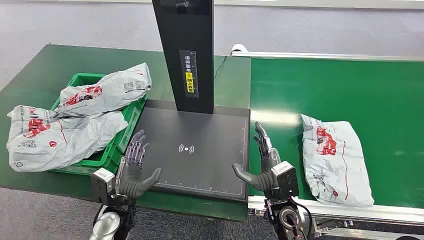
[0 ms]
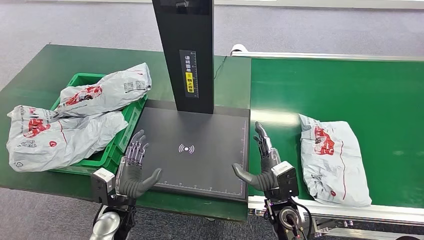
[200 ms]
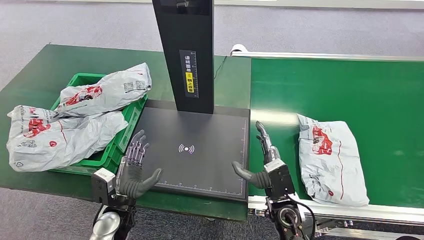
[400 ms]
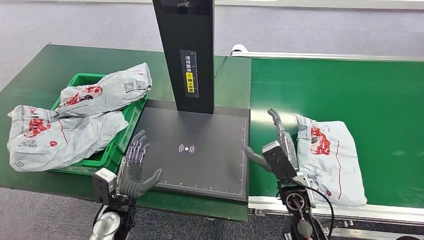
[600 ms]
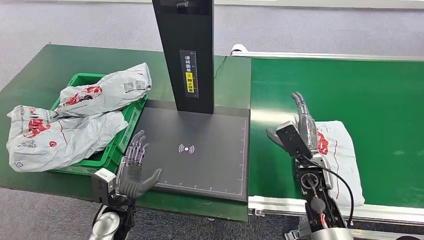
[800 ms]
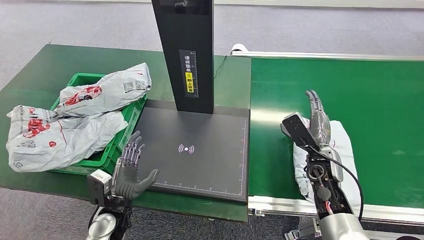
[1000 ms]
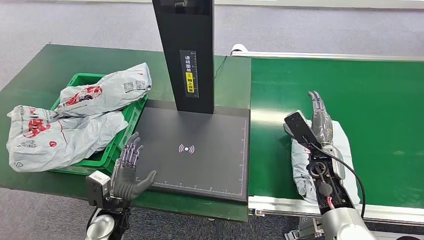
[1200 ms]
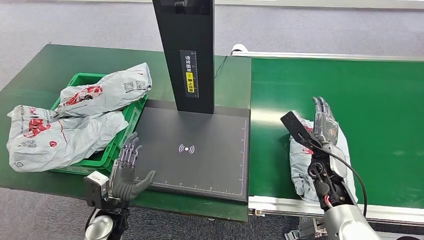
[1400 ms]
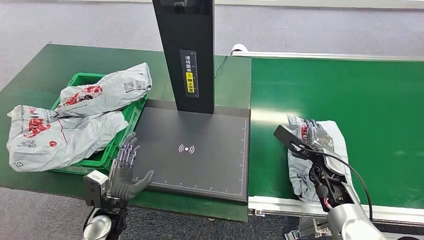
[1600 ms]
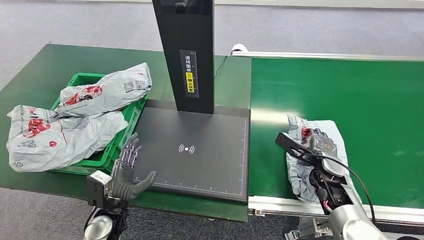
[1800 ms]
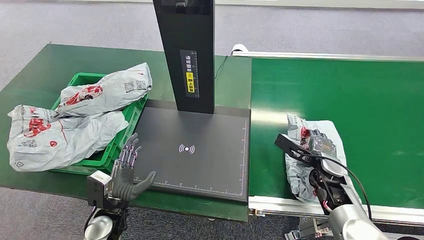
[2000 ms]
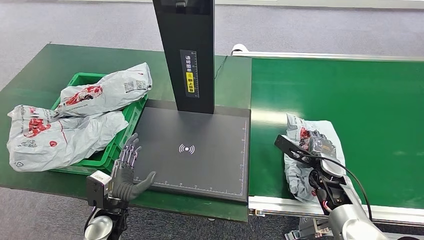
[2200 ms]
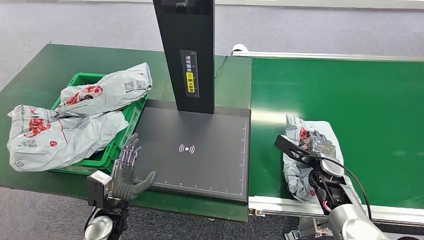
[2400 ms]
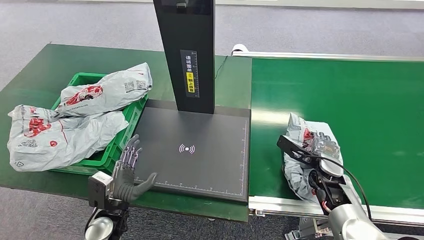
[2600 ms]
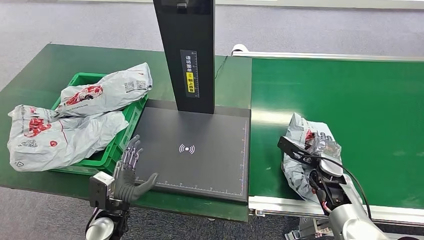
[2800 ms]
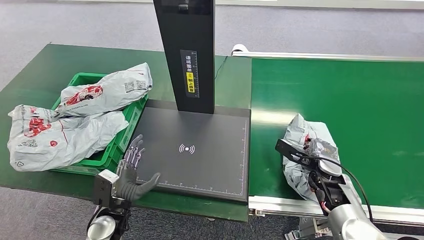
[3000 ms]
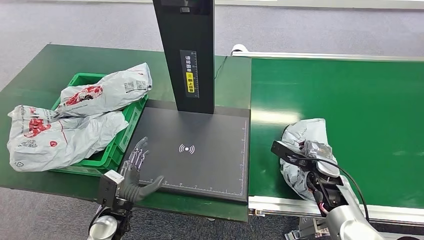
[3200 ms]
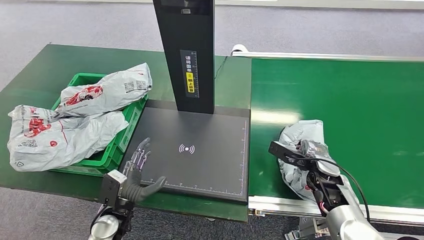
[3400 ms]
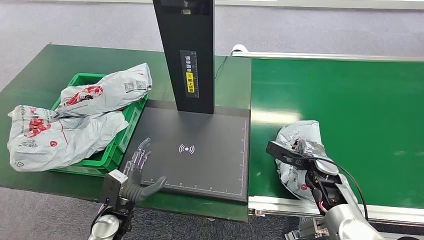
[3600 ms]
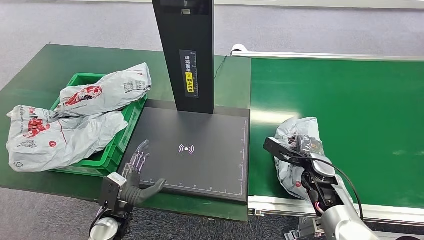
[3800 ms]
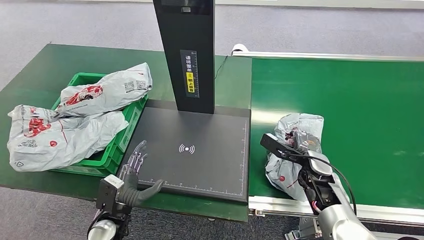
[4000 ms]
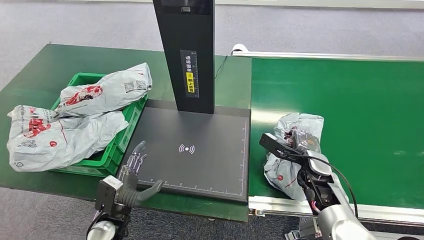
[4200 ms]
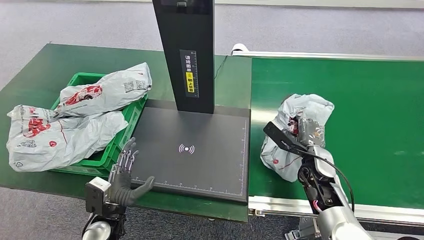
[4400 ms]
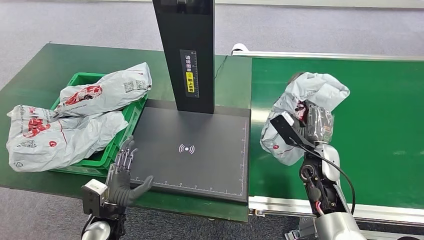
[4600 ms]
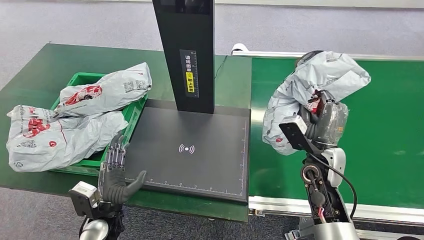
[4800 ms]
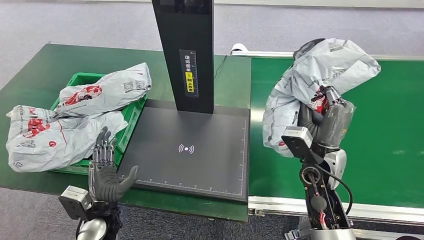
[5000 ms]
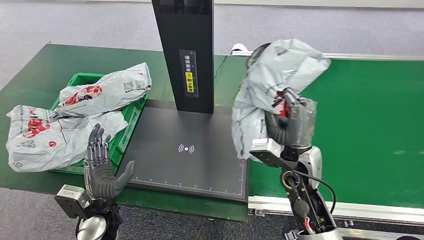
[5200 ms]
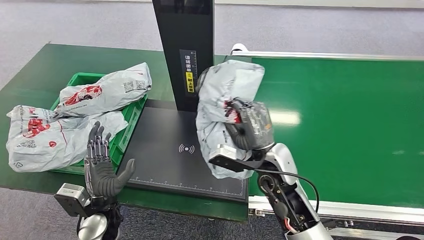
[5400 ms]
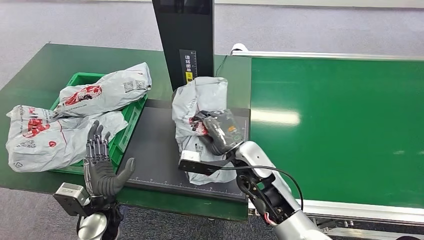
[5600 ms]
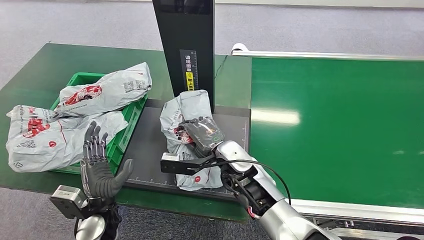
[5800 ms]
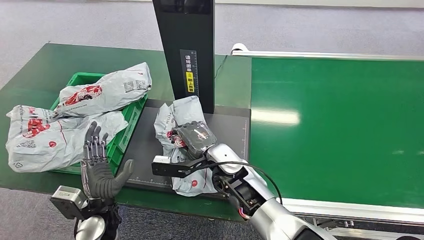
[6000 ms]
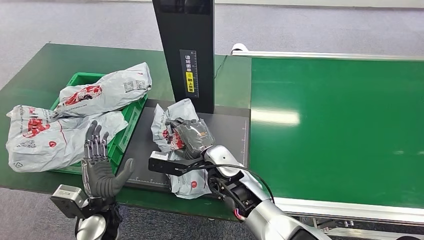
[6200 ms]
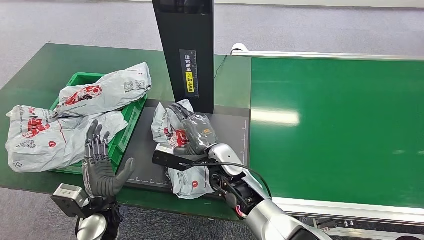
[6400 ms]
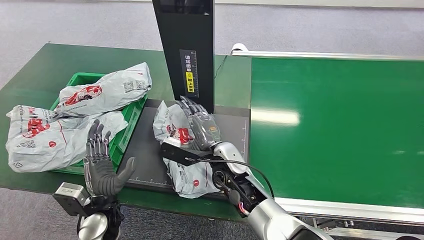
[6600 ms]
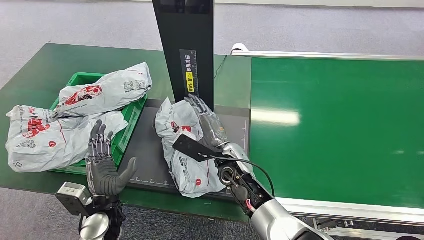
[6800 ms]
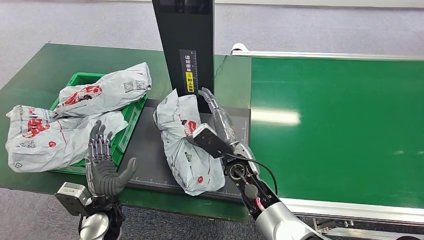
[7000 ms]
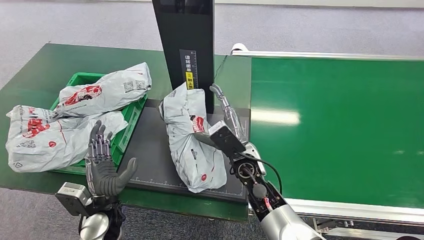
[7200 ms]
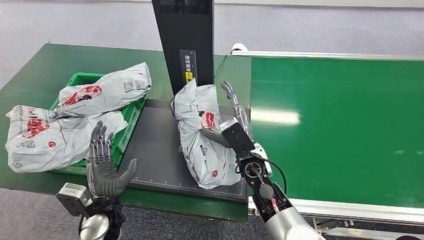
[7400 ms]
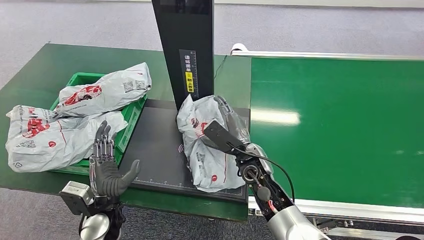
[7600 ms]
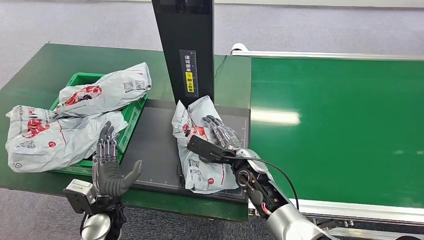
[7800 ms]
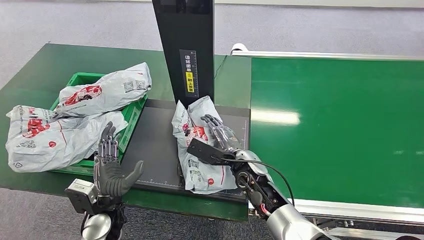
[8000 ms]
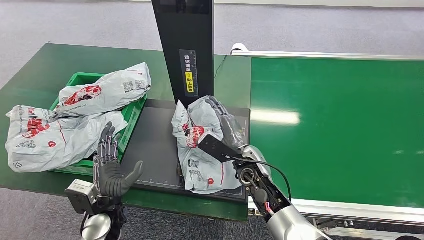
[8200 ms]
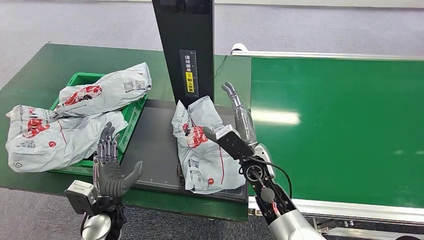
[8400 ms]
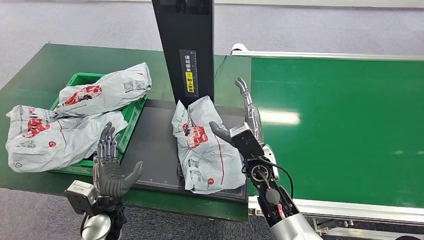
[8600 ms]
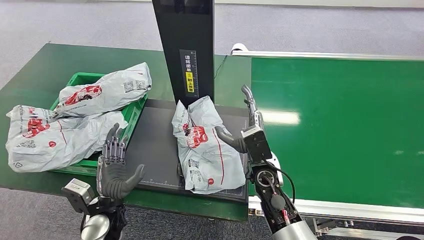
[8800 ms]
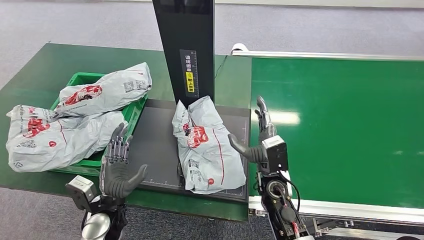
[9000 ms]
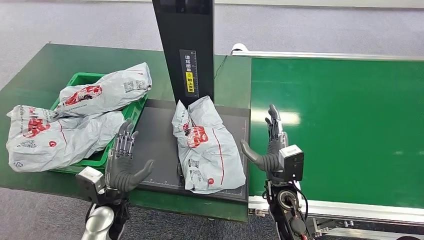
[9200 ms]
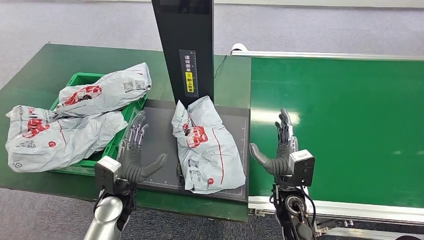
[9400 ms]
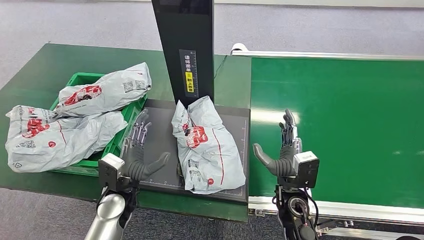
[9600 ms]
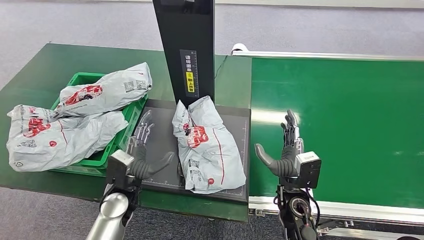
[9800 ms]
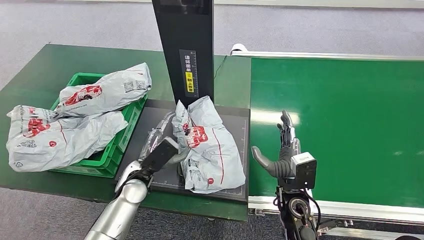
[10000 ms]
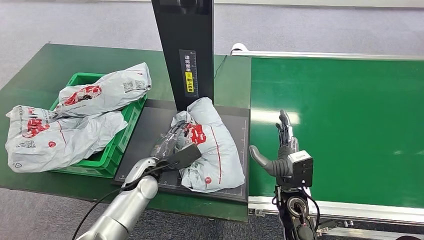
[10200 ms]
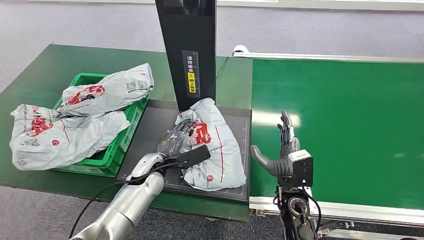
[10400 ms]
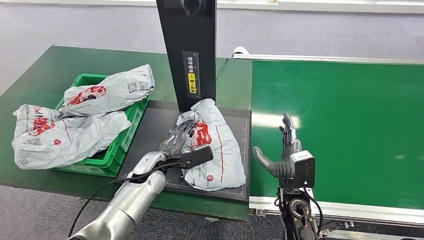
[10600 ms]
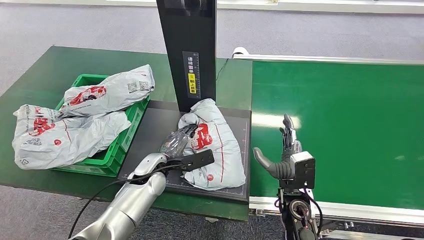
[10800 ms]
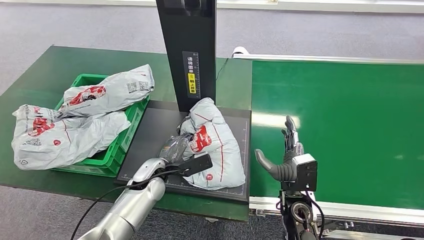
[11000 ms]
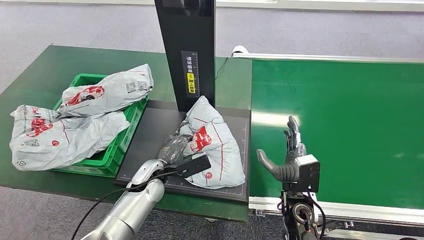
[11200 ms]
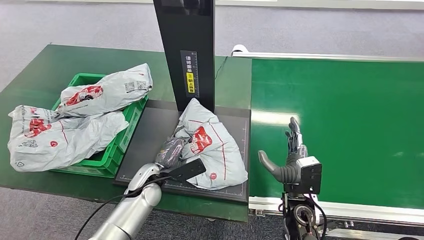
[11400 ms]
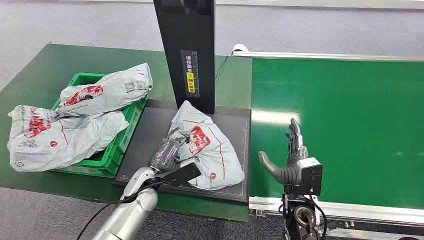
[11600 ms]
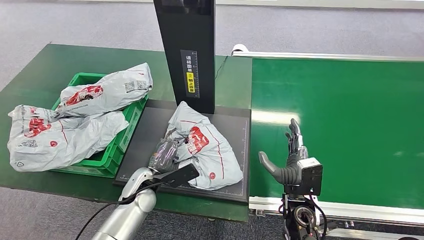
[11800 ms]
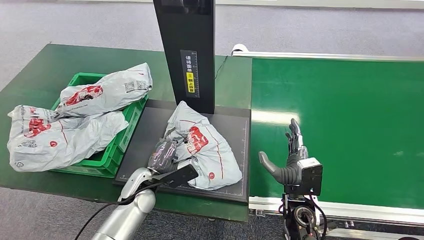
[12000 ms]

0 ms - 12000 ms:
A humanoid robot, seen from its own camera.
Step, 0 ms - 4600 ms: Pick up the package from the conveyor belt.
Step, 4800 ms - 9000 ms: Place the package onto the inbound machine.
6000 ms - 7600 ms: The right hand heads to the right, covering some 5 cm.
7600 ms - 9000 ms: The right hand ends up some 5 cm from where it was.

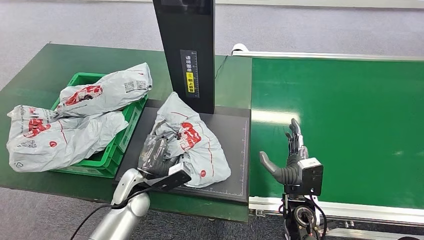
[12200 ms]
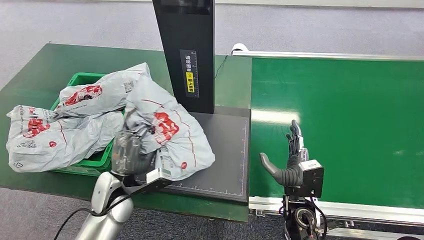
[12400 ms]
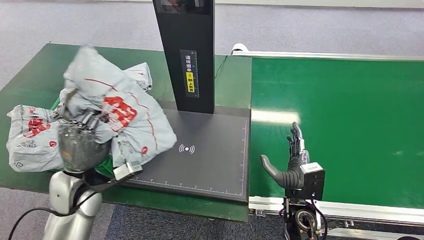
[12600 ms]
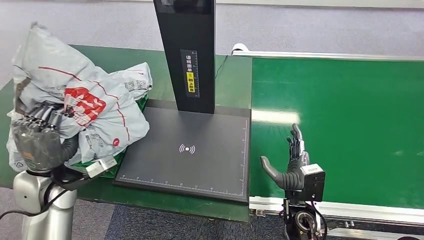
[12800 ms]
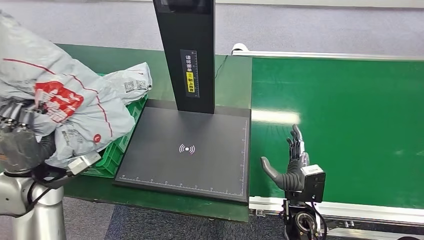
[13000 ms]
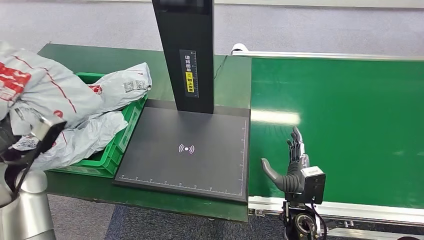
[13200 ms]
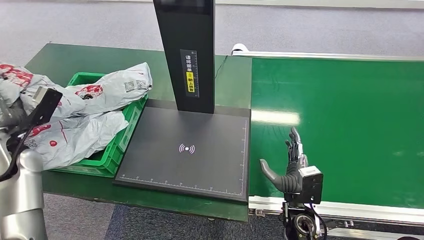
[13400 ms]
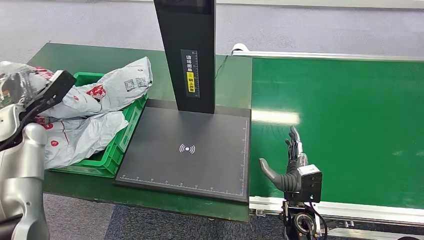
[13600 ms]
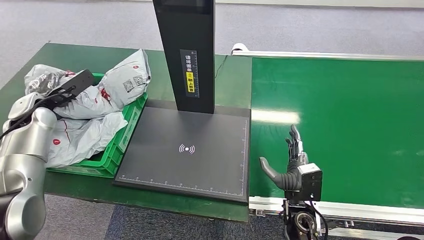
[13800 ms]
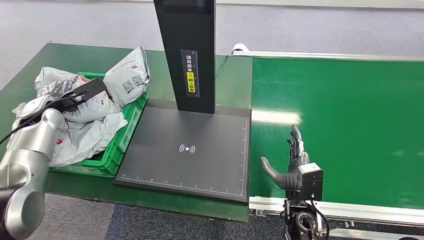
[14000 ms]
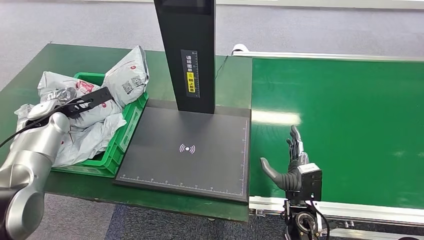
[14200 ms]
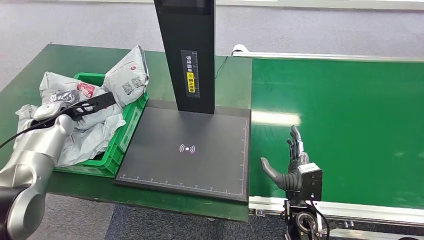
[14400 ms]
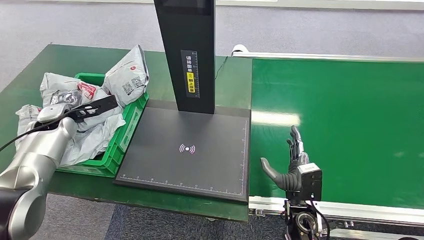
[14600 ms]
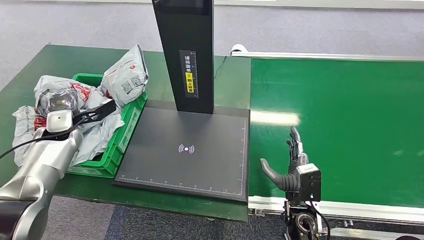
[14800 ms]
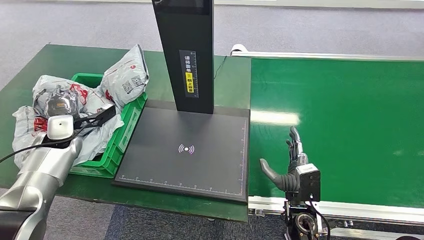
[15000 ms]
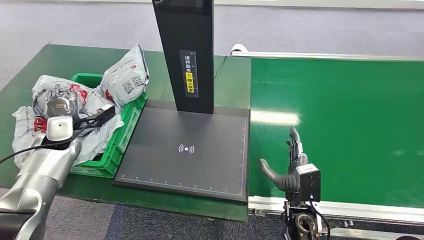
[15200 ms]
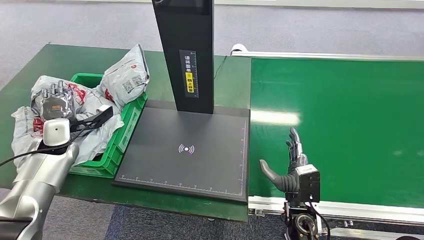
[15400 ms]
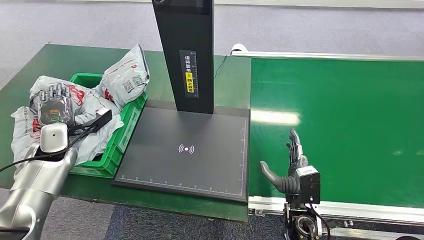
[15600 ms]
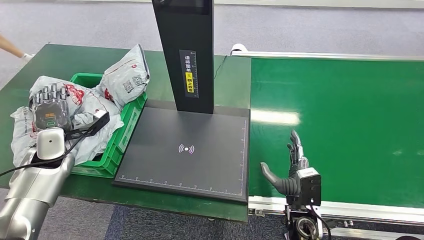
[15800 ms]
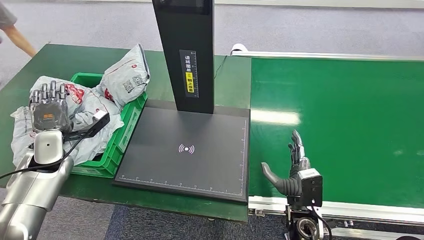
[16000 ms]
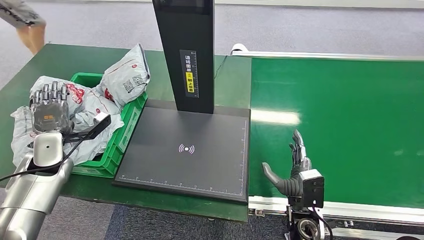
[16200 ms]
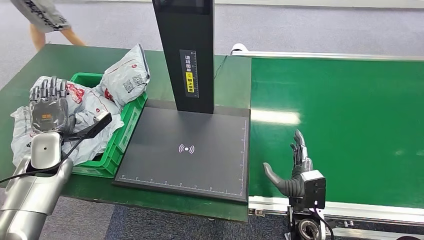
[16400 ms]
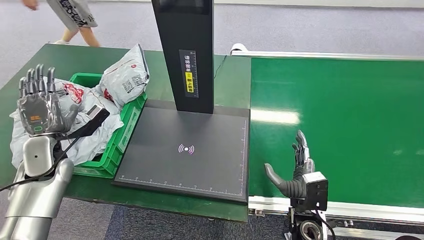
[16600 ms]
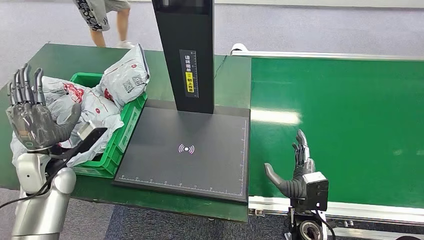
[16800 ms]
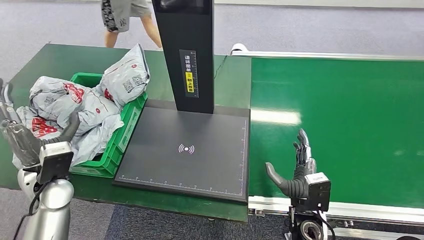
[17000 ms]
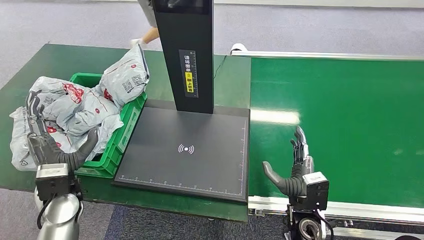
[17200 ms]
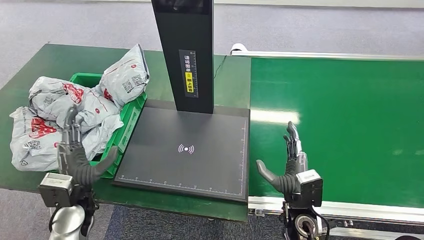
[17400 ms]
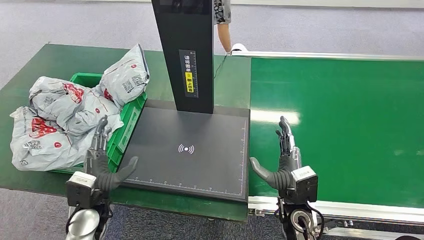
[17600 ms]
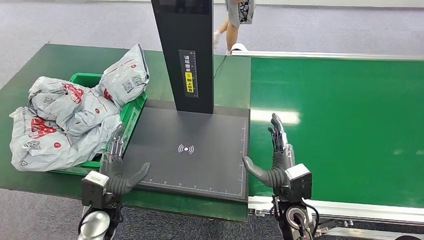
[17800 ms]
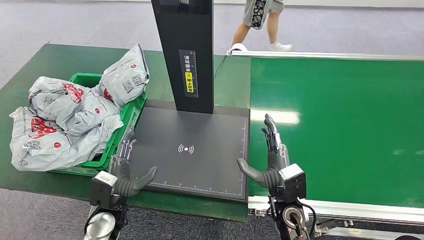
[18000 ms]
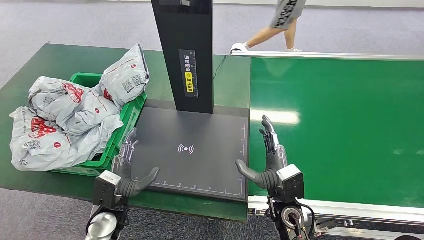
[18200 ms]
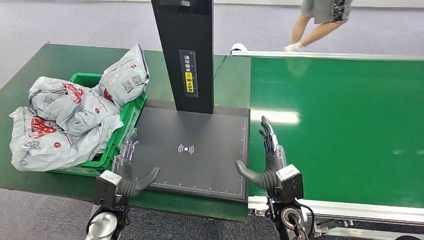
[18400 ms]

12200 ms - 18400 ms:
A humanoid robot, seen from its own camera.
Step, 13400 ms - 18400 ms: Place the package into the parcel locker.
13800 ms - 15400 ms: The left hand moves downward, some 10 cm.
15400 ms - 16800 ms: The left hand is displaced backward and to the right by approximately 10 cm.
16800 ms - 18400 ms: The left hand travels to the right, downward and backward by about 20 cm, while the right hand ends up about 5 cm from where it was.
